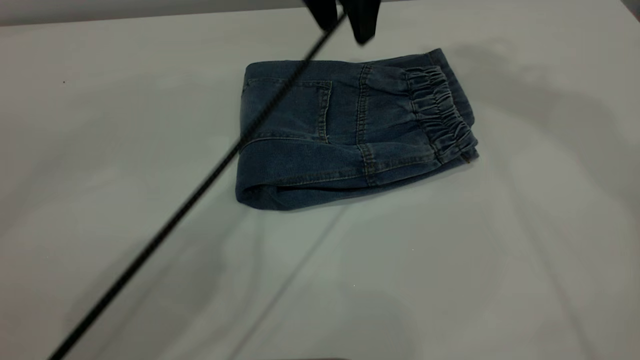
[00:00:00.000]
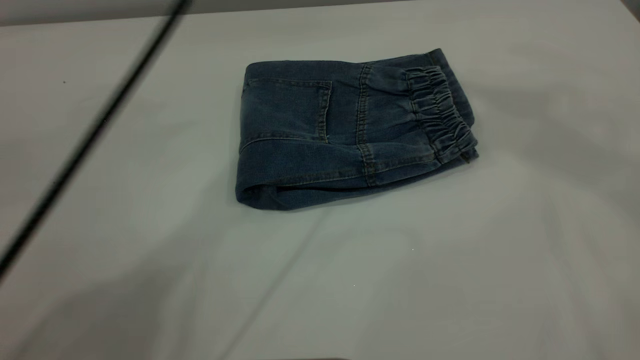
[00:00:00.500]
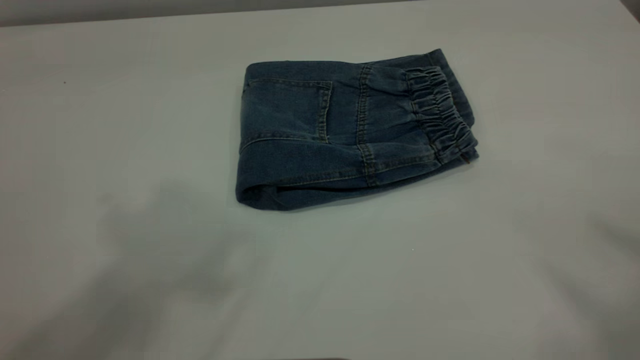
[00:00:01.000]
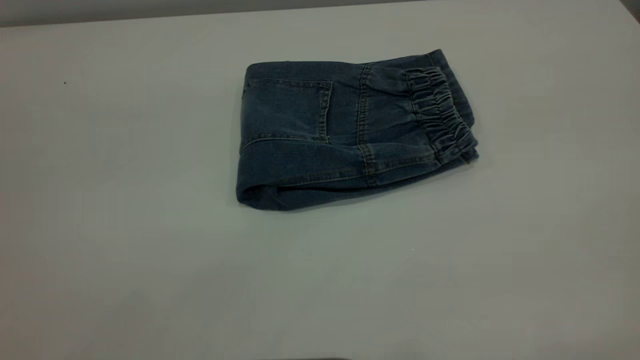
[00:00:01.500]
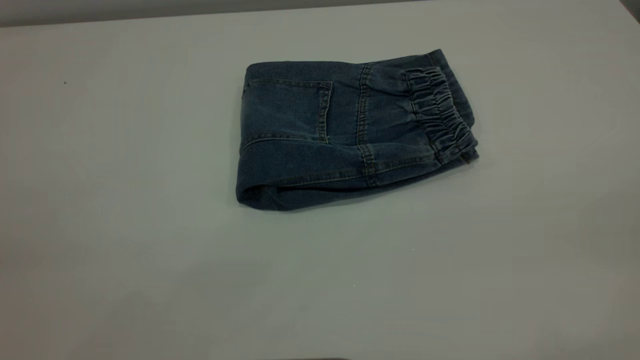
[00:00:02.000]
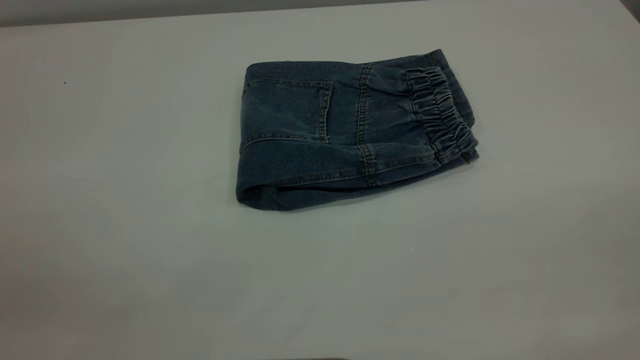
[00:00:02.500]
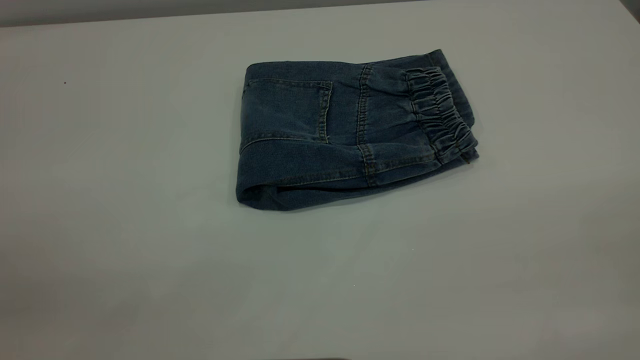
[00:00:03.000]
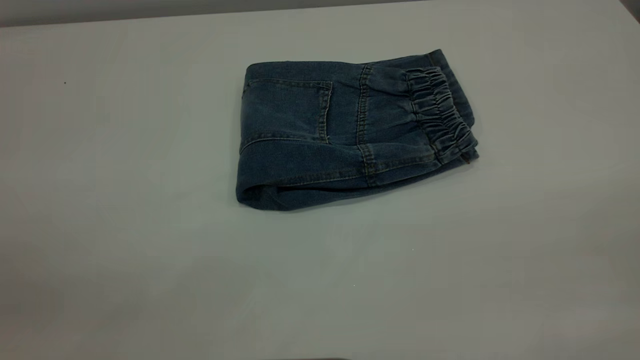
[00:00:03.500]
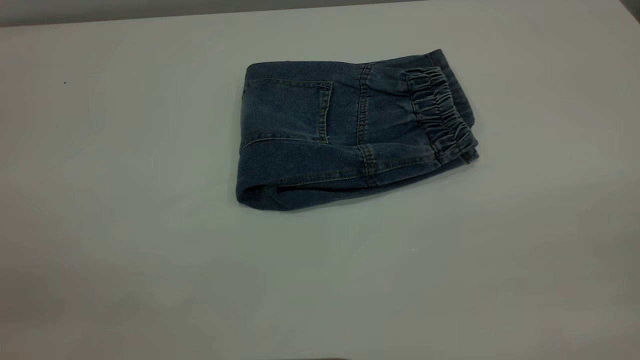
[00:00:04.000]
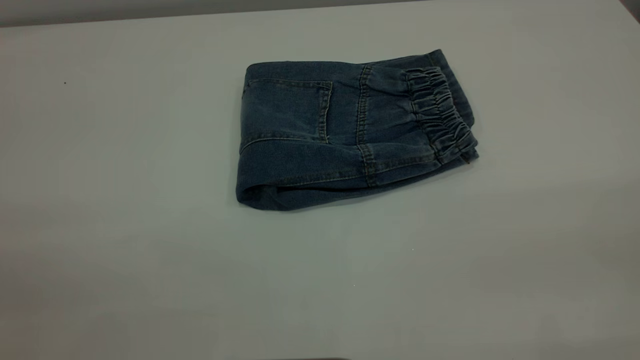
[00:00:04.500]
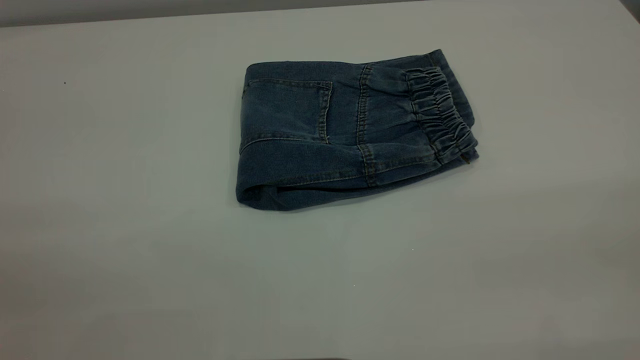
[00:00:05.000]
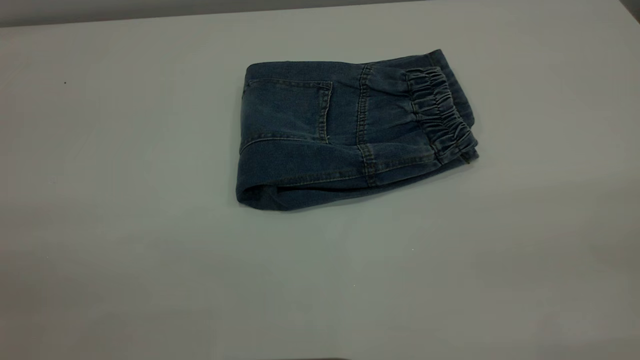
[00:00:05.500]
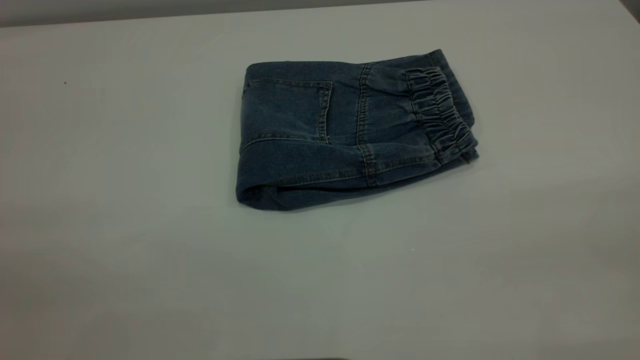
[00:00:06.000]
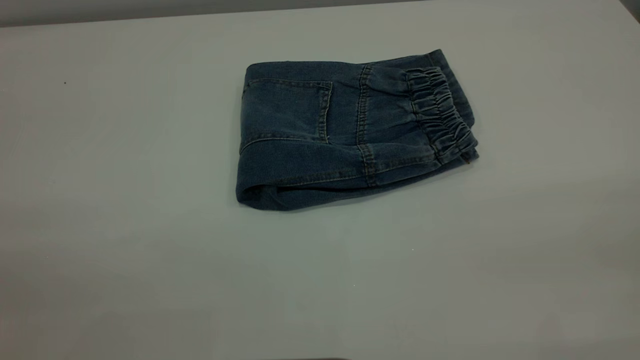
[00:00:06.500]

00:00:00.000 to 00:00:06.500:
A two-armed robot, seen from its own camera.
00:00:00.000 to 00:00:02.000: The right gripper goes some 50 cm backward; the left gripper moves backward and to the left, roughly 50 cm.
